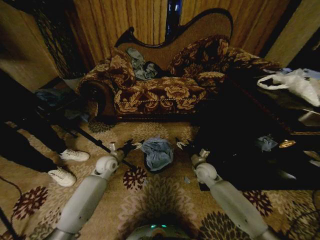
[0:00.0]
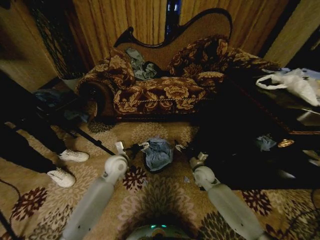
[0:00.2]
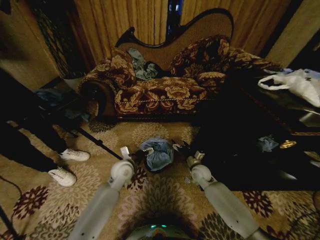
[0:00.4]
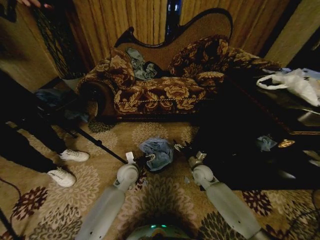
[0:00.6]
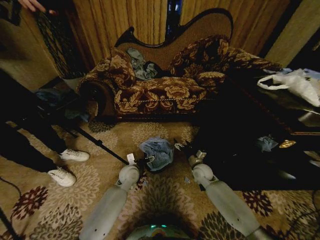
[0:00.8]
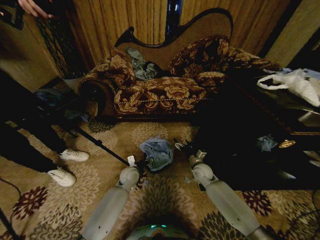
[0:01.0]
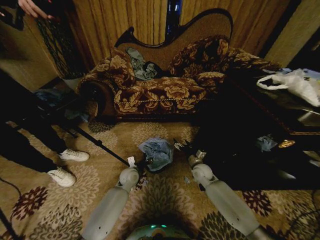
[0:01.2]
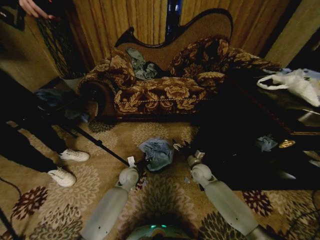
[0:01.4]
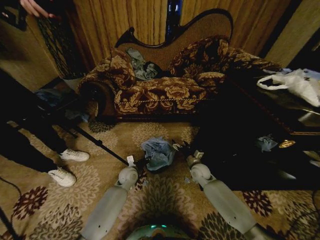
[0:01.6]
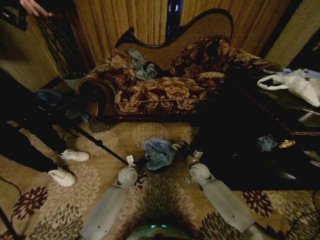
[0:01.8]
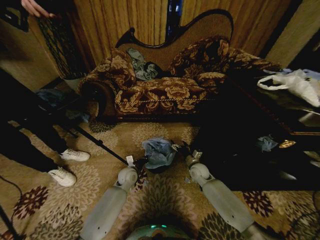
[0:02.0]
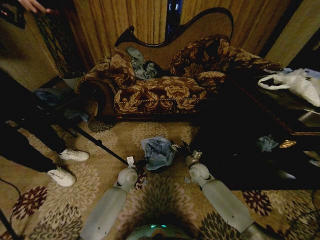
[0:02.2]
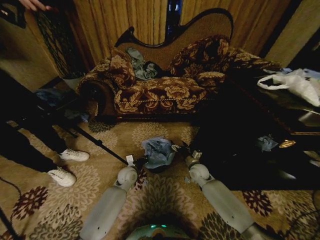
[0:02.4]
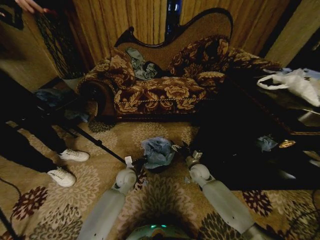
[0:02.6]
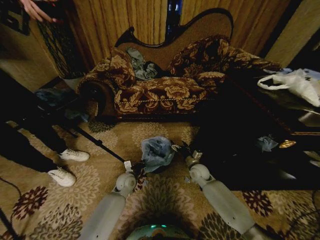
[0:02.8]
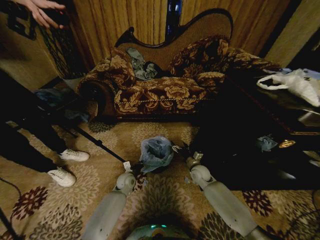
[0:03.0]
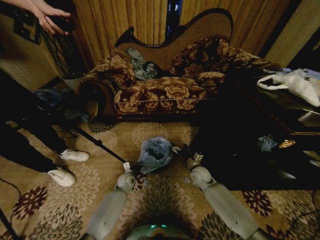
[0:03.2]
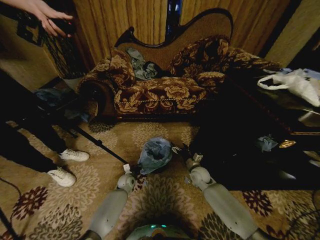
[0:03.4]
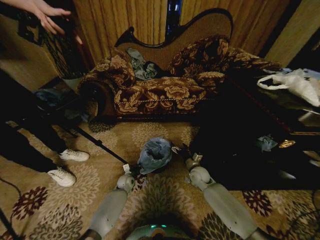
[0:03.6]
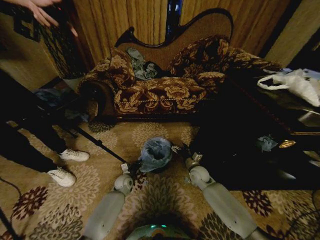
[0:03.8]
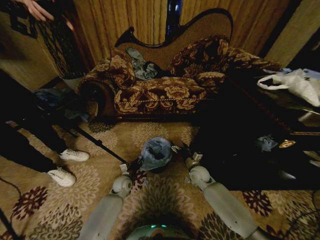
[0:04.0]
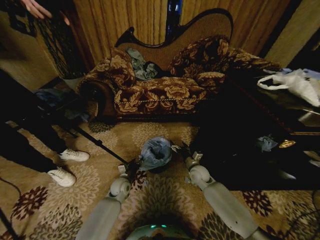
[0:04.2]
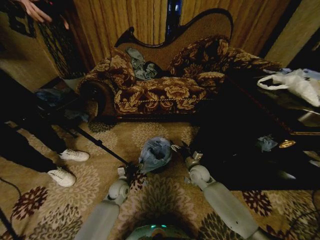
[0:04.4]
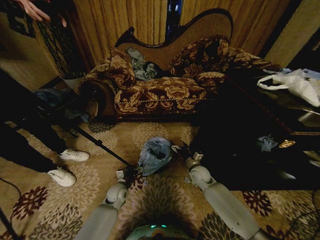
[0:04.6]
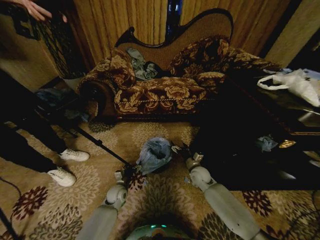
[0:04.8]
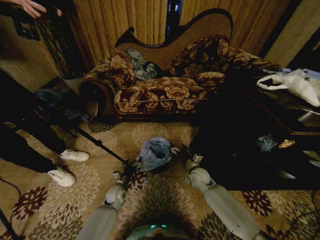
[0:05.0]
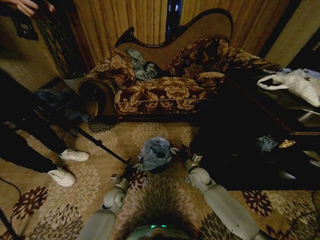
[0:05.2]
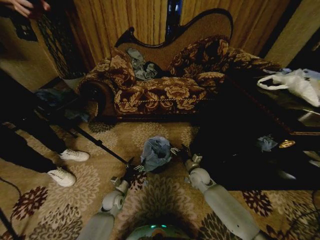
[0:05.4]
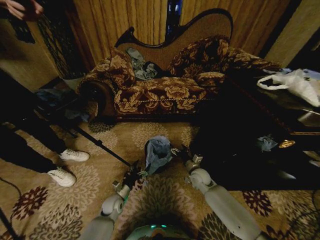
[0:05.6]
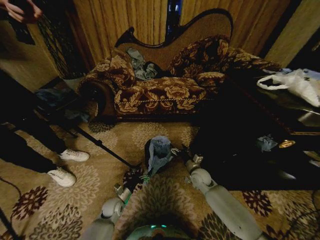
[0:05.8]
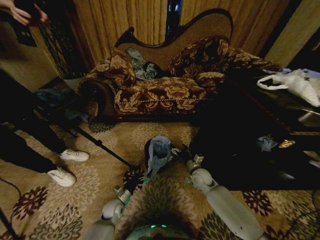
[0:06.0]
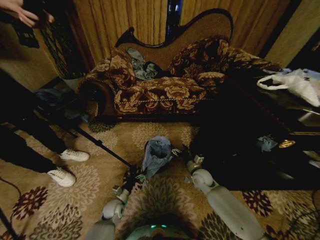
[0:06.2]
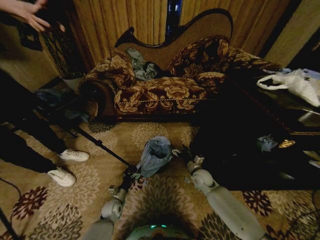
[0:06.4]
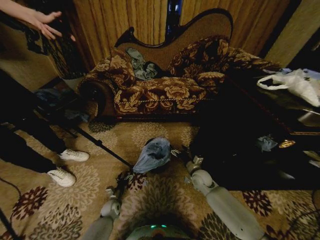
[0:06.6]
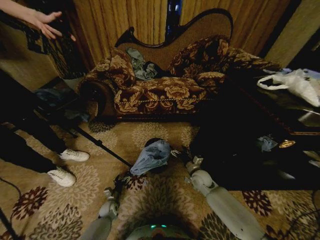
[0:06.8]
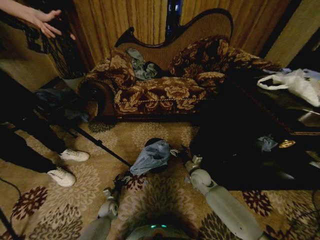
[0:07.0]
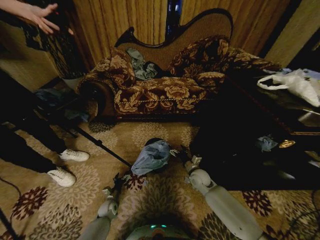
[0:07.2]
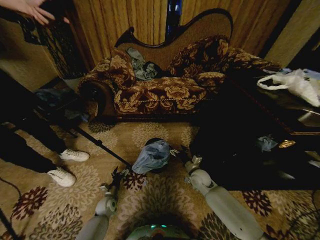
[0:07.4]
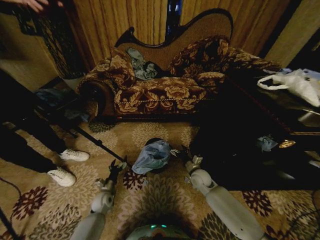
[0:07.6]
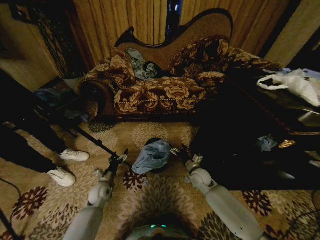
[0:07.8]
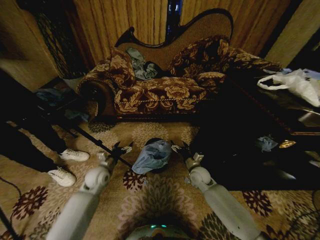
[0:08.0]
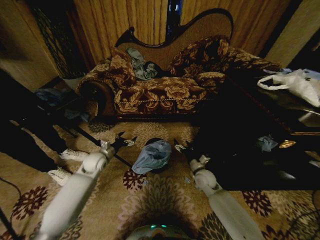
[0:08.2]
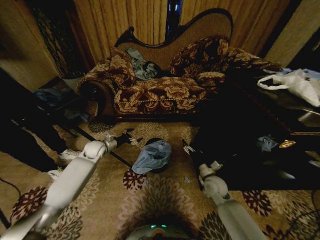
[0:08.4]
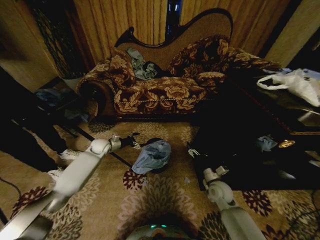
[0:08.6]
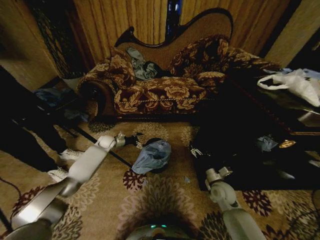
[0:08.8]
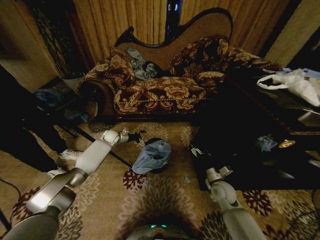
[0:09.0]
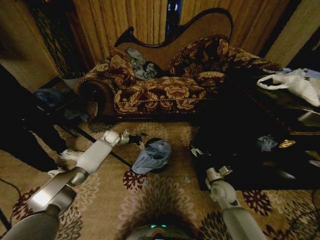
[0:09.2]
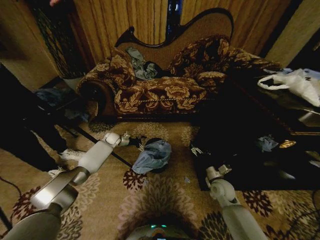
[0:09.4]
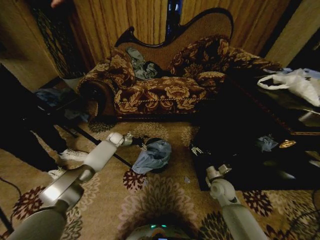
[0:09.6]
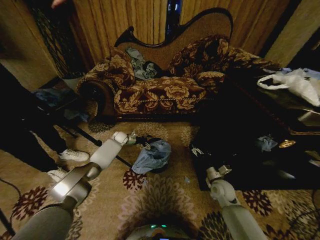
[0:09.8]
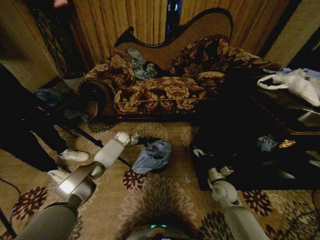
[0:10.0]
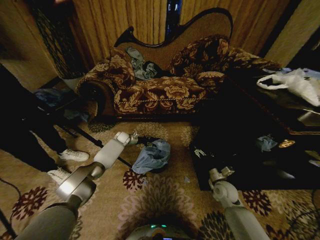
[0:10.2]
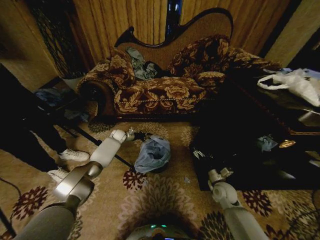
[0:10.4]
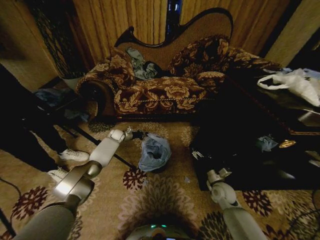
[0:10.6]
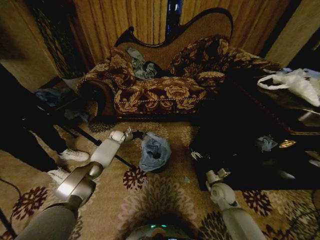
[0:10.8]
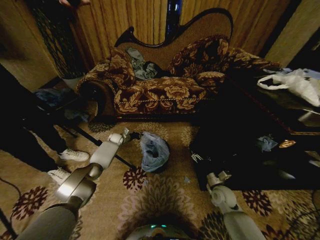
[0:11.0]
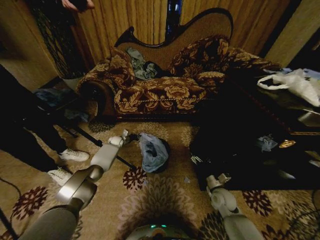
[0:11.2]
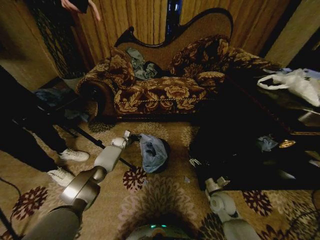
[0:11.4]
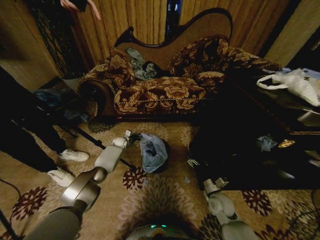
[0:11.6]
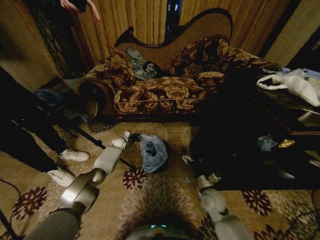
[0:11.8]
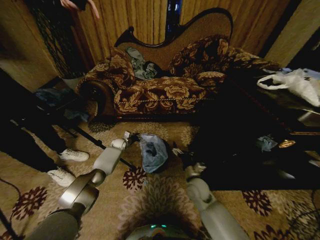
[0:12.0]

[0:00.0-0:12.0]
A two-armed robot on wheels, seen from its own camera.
Task of the whole recording: Place a garbage bag over the trash bin.
0:00.0 to 0:01.6: The left gripper travels to the right and downward by roughly 10 cm, and closes.
0:01.6 to 0:03.0: The grippers stay close to where they were, moving slightly.
0:03.0 to 0:04.4: The left gripper moves about 5 cm, and opens its fingers.
0:04.4 to 0:06.0: The left gripper moves downward and backward, about 10 cm.
0:06.0 to 0:07.6: The left gripper moves to the left, about 5 cm, and reaches some 10 cm downward, then returns.
0:07.6 to 0:09.0: The left gripper goes about 35 cm forward and upward; the right gripper shifts some 10 cm to the right and backward.
0:09.0 to 0:10.4: The left gripper ends up some 5 cm from where it was, and closes up.
0:10.4 to 0:12.0: The right gripper shifts some 15 cm to the left, while the left gripper moves downward, roughly 5 cm, and opens.

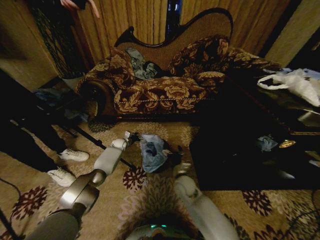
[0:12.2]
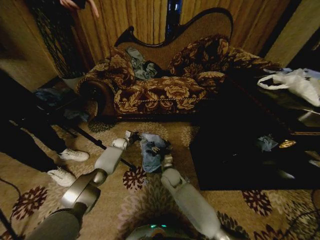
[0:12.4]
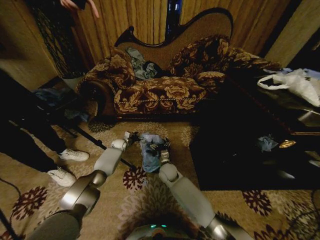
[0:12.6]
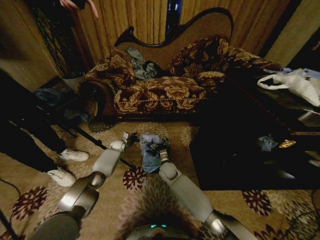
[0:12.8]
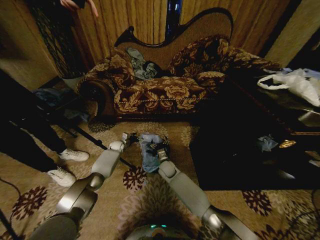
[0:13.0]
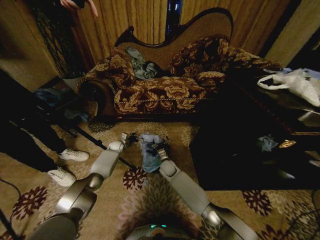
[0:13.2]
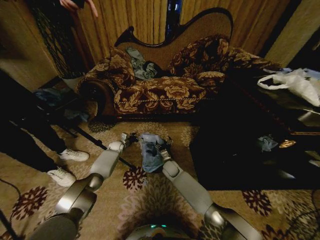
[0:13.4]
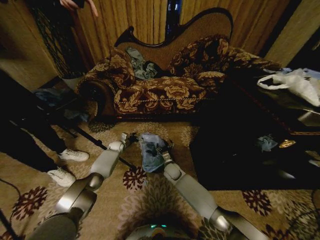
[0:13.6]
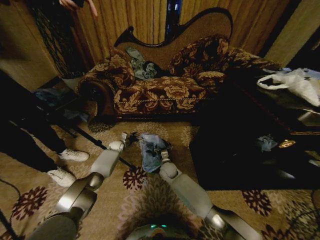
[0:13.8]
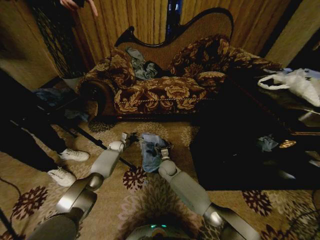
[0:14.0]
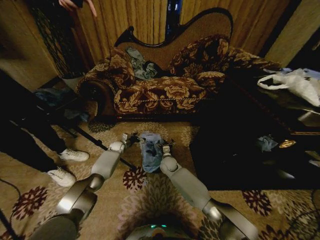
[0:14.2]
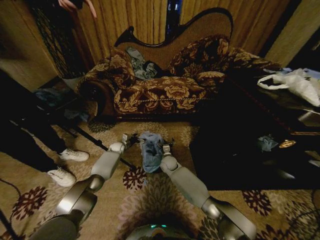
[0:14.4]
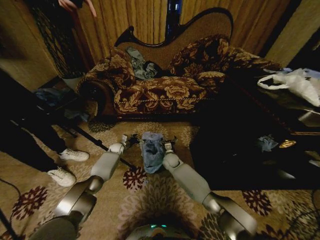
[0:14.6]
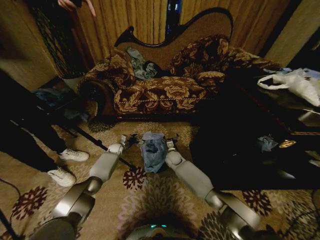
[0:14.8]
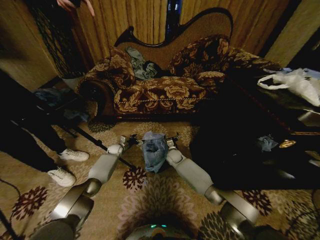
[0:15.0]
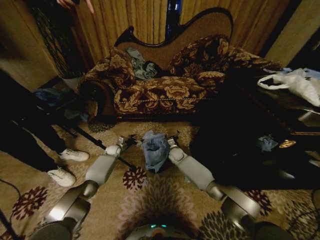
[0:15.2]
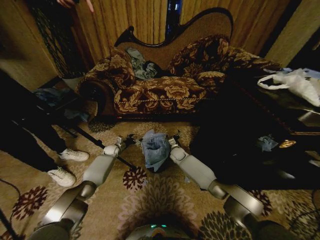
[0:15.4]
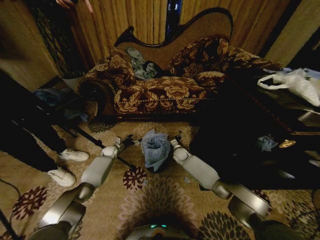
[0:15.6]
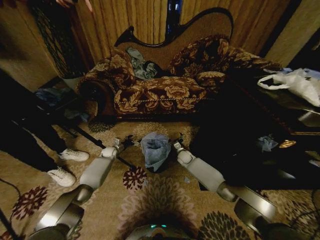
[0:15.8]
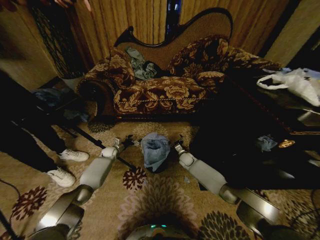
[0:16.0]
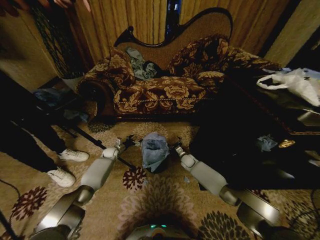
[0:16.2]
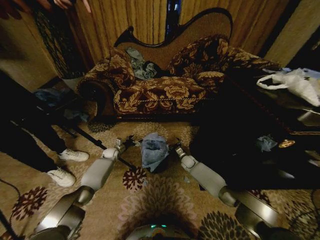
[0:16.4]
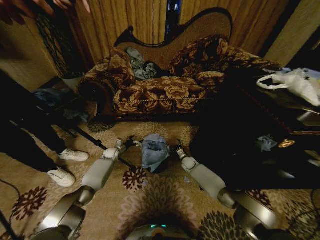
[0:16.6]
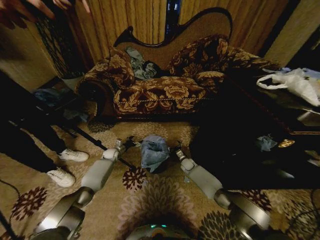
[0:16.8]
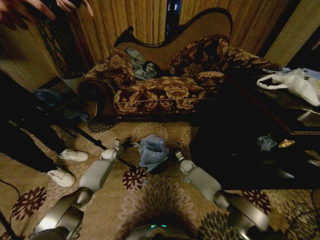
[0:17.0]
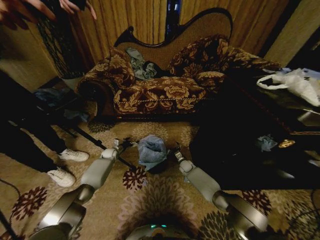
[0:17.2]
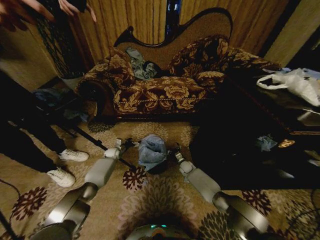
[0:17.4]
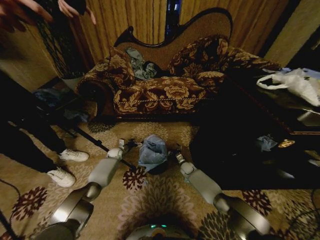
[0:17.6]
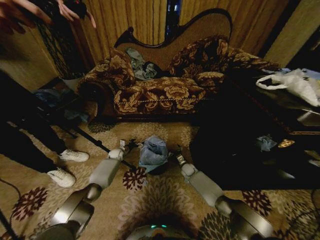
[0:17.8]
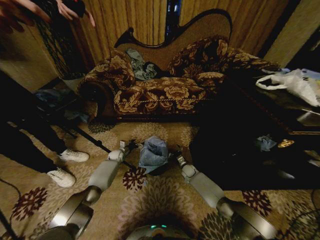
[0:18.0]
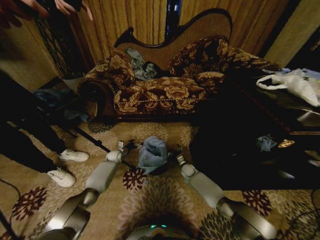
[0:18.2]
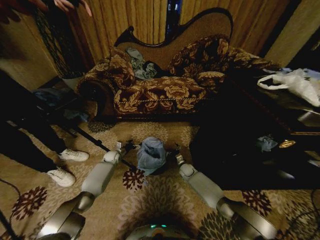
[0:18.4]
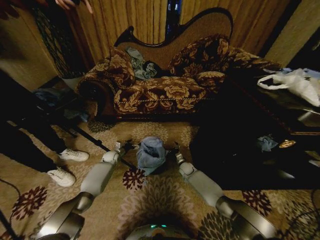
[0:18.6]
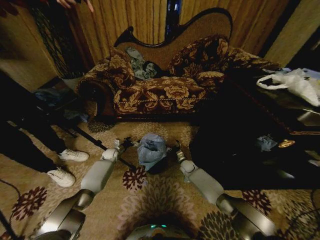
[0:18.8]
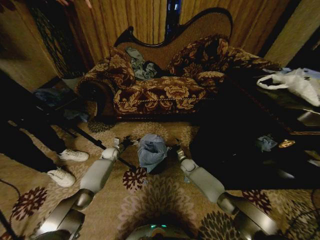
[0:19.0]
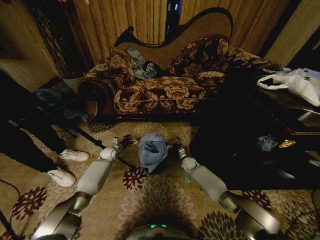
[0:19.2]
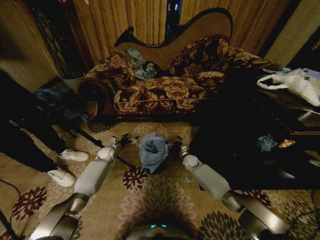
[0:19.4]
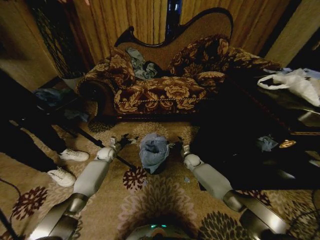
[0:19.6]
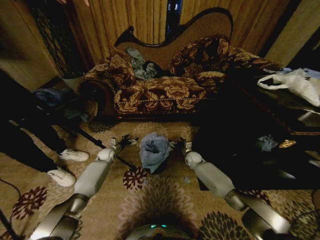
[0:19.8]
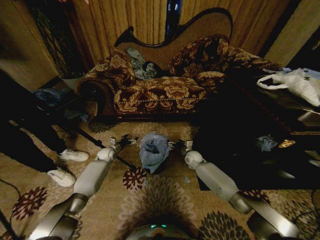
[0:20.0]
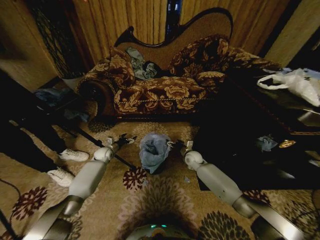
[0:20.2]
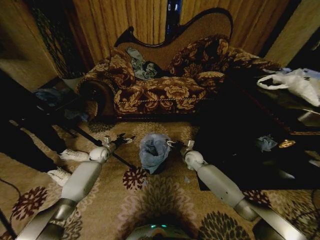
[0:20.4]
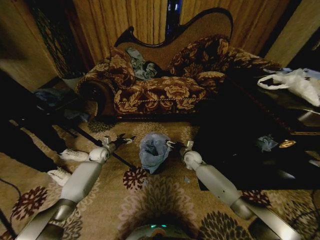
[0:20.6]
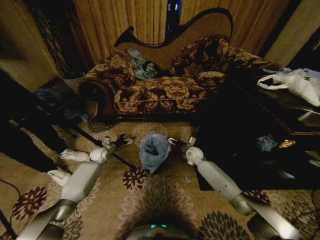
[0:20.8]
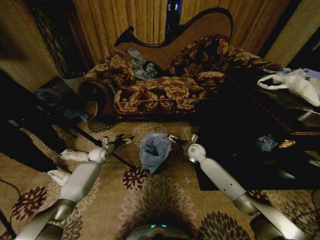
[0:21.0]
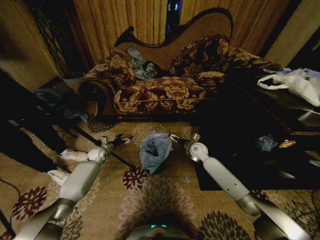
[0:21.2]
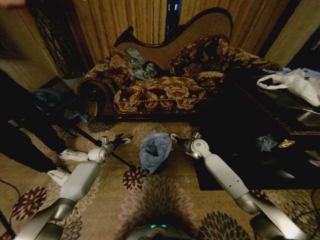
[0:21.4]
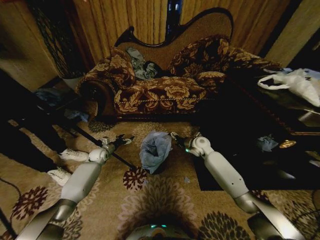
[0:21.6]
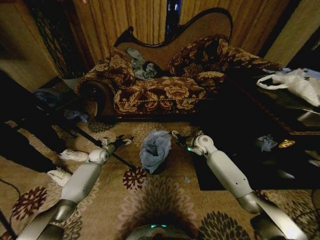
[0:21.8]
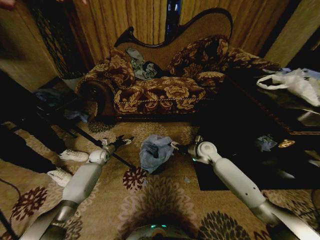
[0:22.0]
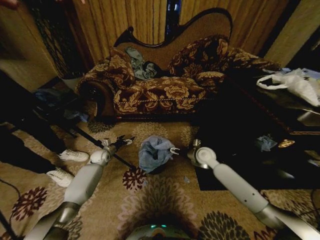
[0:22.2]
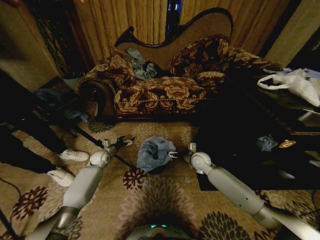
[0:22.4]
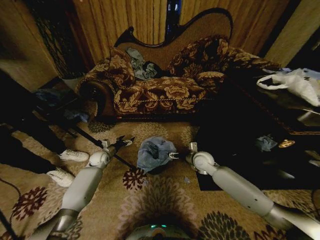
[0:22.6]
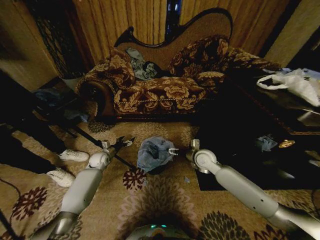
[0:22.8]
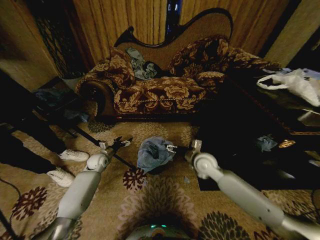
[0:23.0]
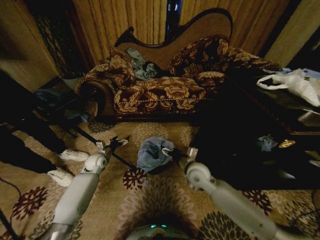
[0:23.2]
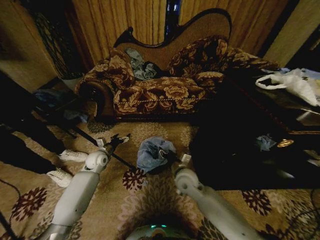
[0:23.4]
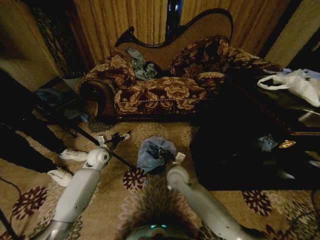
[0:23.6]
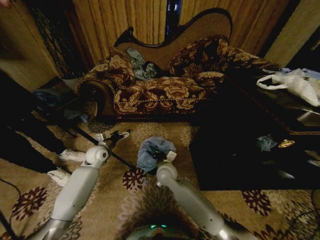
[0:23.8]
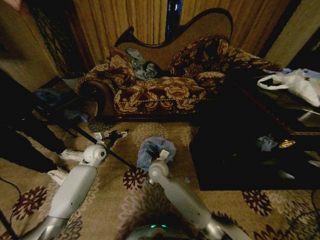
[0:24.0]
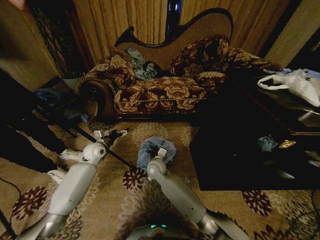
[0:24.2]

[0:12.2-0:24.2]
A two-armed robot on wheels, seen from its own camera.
Task of the whole recording: Place a garbage bag over the trash bin.
0:12.2 to 0:13.8: The right gripper travels forward by roughly 10 cm.
0:13.8 to 0:15.2: The right gripper is displaced forward and to the right by approximately 10 cm.
0:15.2 to 0:16.6: The right gripper shifts roughly 10 cm to the right and downward.
0:16.6 to 0:18.2: The grippers stay close to where they were, moving slightly.
0:18.2 to 0:19.8: The right gripper travels upward by some 10 cm. Meanwhile the left gripper ends up approximately 5 cm from where it was.
0:19.8 to 0:21.2: The right gripper is displaced upward by approximately 10 cm, while the left gripper shifts by some 5 cm.
0:21.2 to 0:22.6: The right gripper travels backward by approximately 5 cm.
0:22.6 to 0:24.2: The left gripper heads upward, covering about 10 cm, while the right gripper heads to the left, covering some 25 cm, and closes up.
